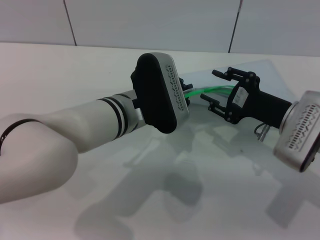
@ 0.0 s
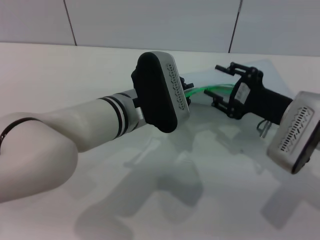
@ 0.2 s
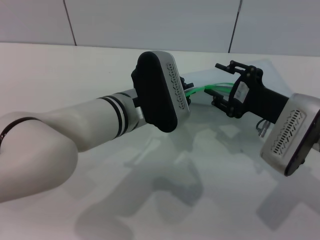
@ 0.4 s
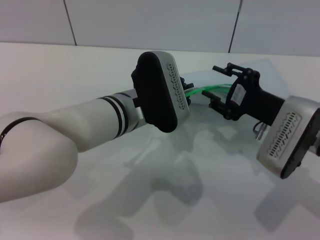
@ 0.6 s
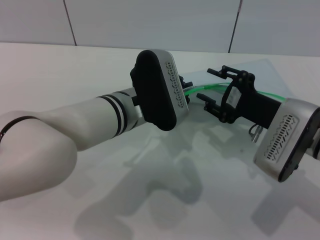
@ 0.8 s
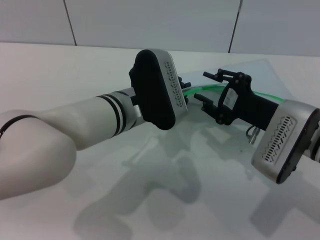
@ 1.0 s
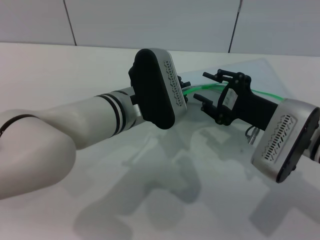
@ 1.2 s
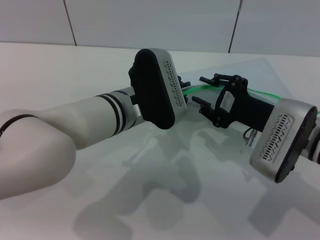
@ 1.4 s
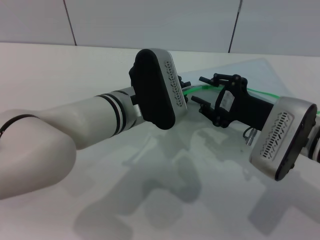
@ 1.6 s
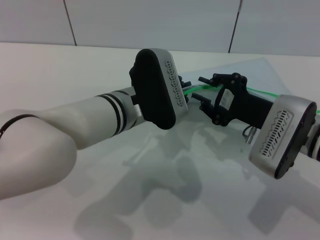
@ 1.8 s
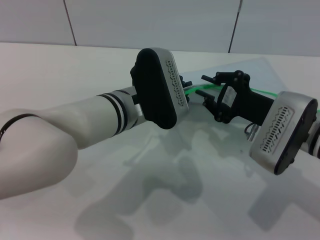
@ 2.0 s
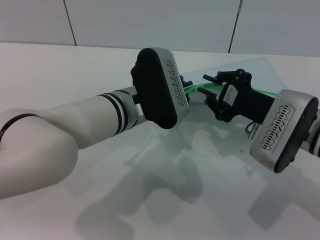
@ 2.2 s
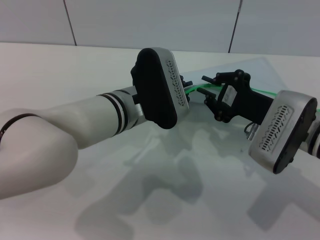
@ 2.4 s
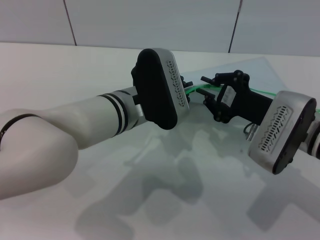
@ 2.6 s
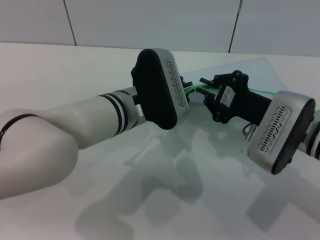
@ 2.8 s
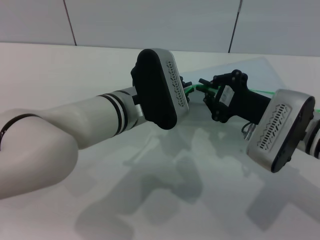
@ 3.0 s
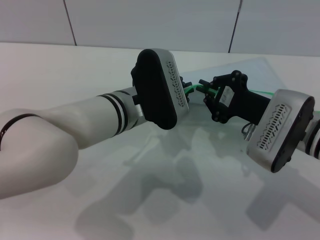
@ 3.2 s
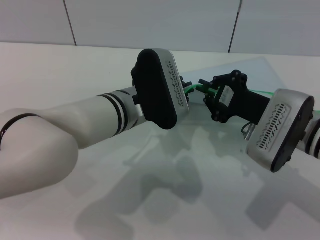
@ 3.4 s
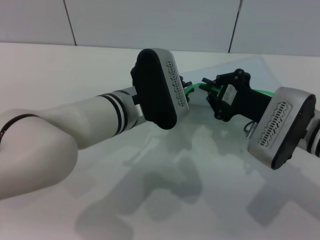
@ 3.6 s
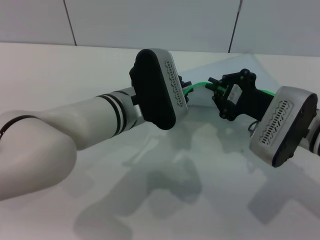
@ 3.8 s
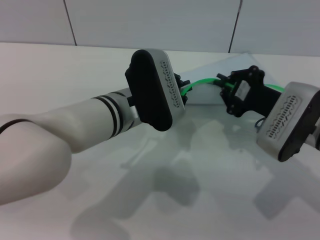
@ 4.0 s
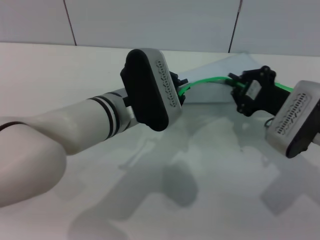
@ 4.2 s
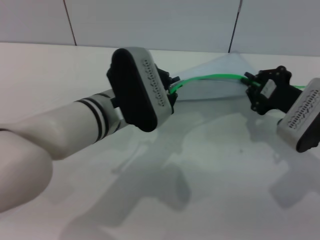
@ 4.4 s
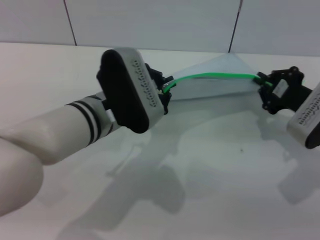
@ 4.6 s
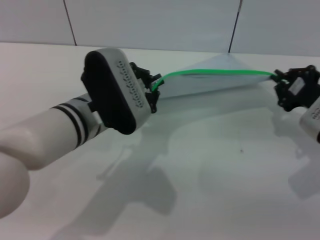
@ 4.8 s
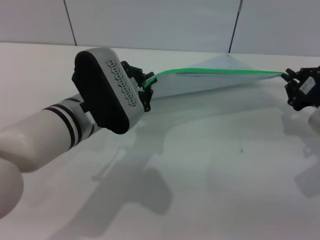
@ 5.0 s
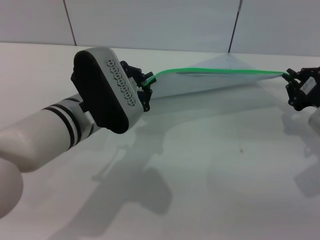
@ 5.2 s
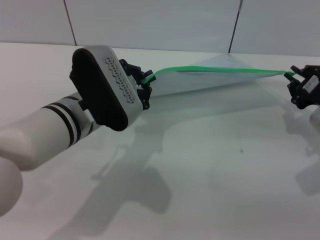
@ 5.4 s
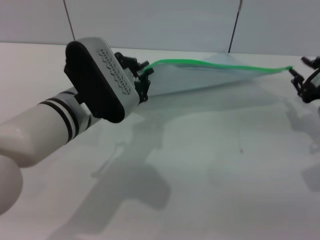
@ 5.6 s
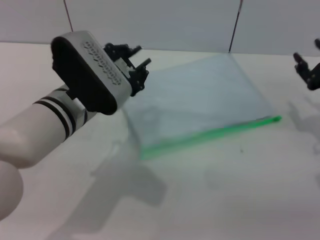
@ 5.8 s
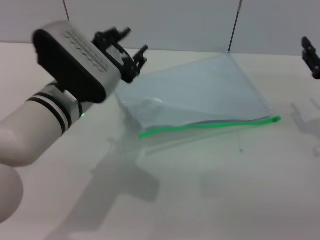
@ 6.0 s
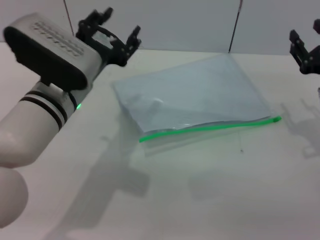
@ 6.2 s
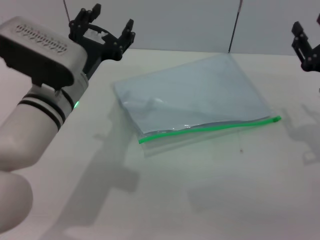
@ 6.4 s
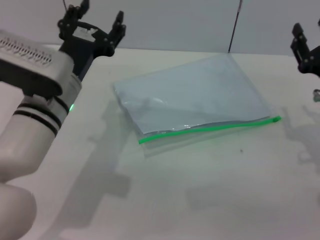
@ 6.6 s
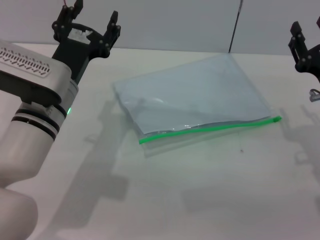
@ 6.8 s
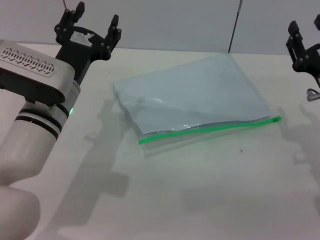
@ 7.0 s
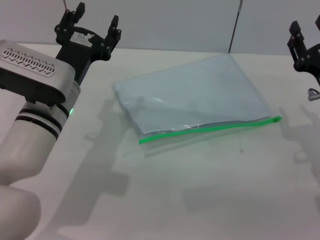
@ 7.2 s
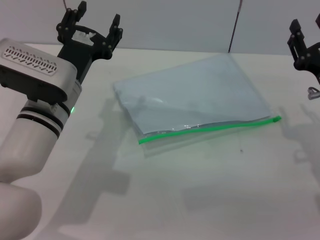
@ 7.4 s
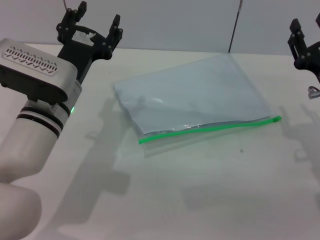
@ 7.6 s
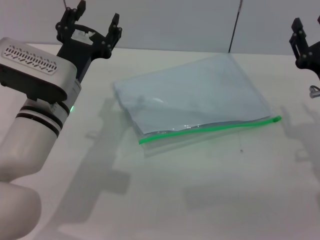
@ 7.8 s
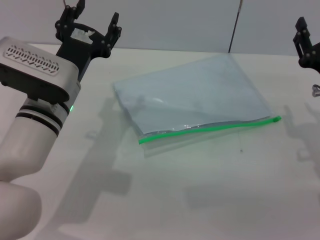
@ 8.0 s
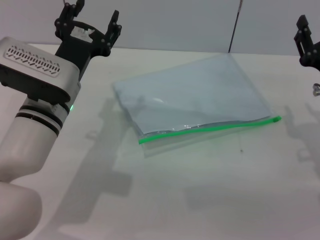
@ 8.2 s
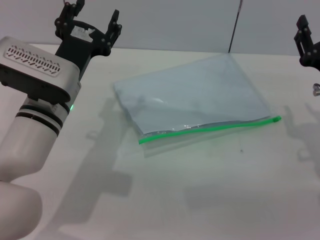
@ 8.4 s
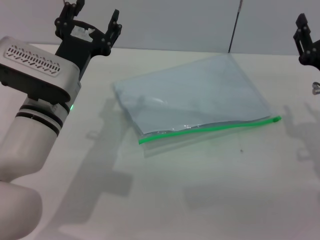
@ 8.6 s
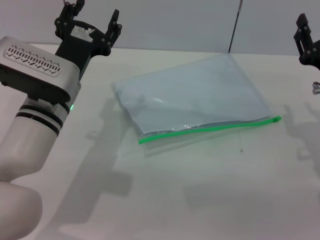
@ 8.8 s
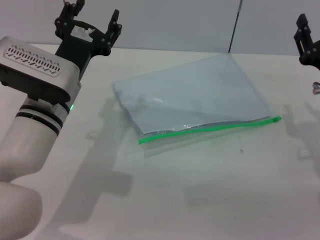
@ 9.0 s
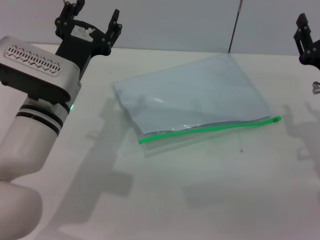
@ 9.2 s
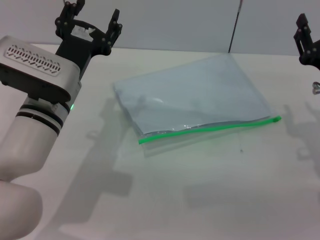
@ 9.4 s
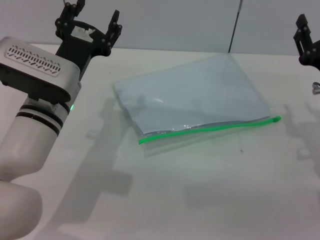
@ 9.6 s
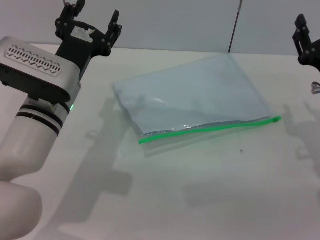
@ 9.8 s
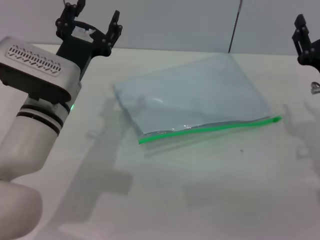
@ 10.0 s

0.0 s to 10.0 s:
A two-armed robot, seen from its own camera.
Step, 0.0 to 5.6 s: Pulling up the zipper on the transparent plastic bag with the right gripper to close it.
Step, 6.0 to 7.0 s: Place the transparent plastic bag.
0.0 to 1.4 s: There are only small adjustments of the grippers.
1.4 to 2.8 s: The right gripper closes its fingers.
2.8 to 4.2 s: There are only small adjustments of the grippers.
4.2 to 5.8 s: The left gripper shifts approximately 5 cm to the left. The right gripper goes roughly 10 cm to the right.
5.8 to 7.2 s: The right gripper changes place by roughly 5 cm, while the left gripper opens its fingers.
7.2 to 10.0 s: The two grippers keep their place.
